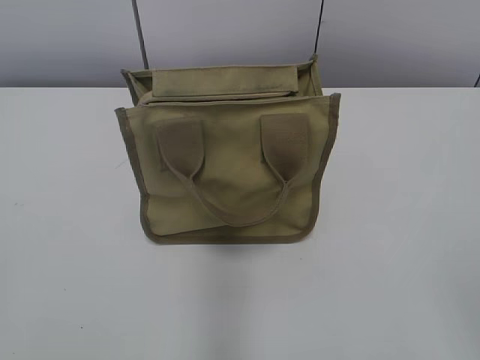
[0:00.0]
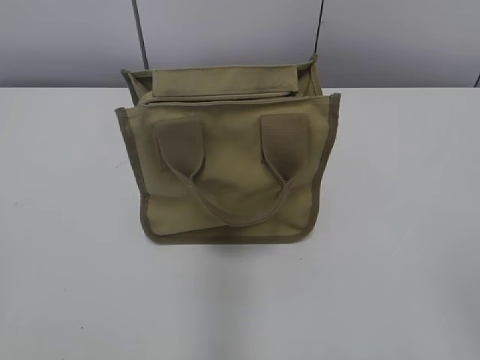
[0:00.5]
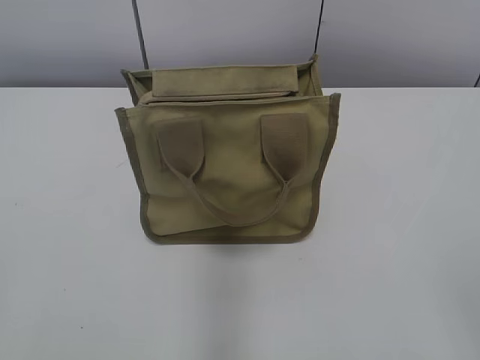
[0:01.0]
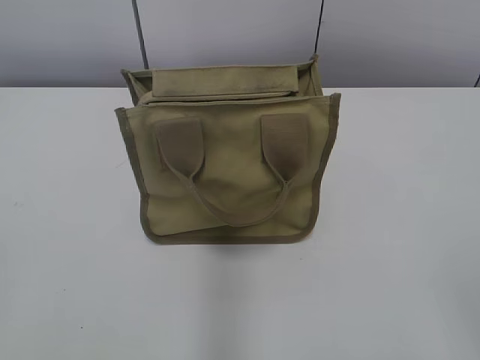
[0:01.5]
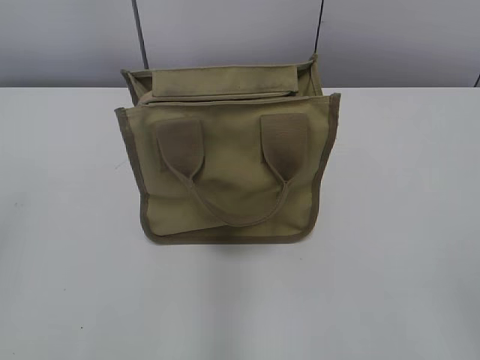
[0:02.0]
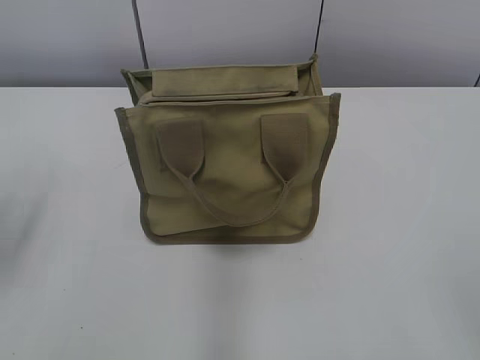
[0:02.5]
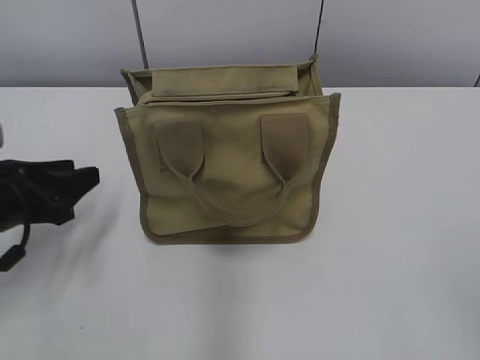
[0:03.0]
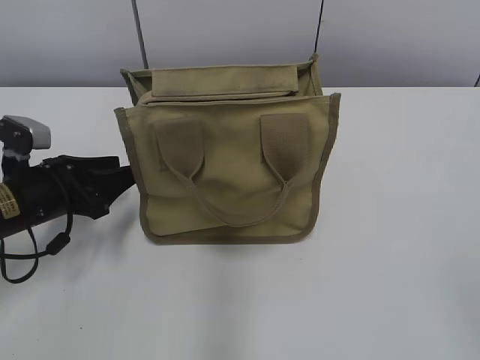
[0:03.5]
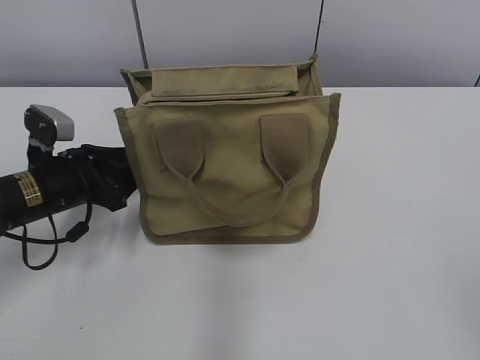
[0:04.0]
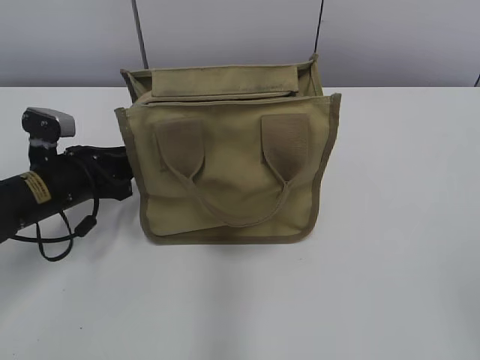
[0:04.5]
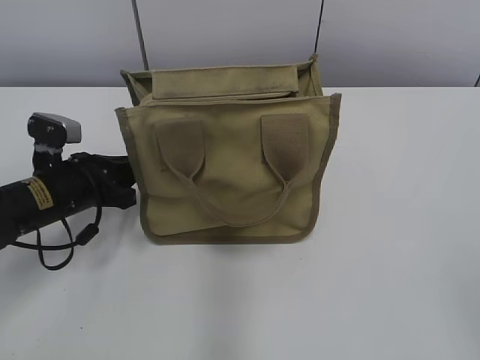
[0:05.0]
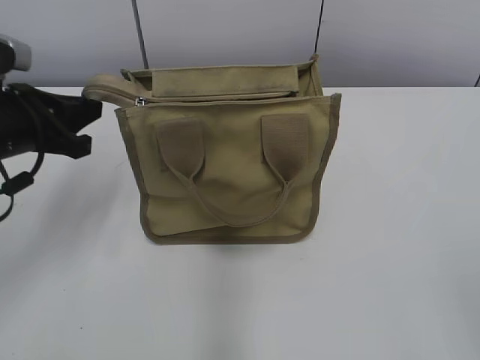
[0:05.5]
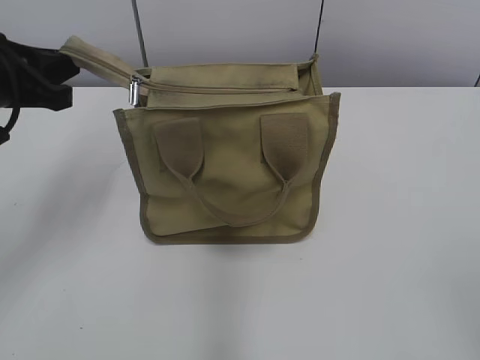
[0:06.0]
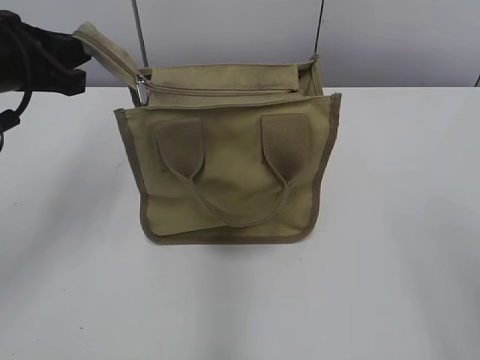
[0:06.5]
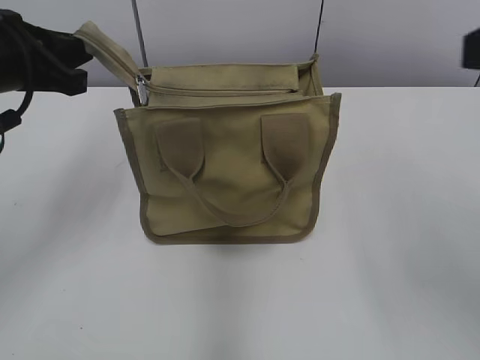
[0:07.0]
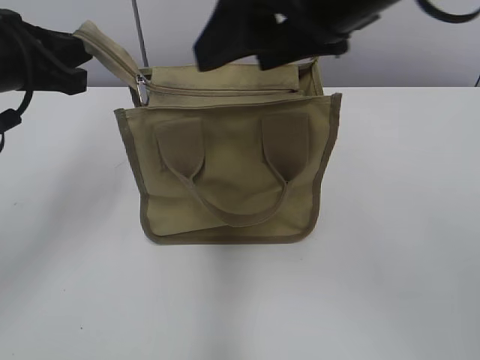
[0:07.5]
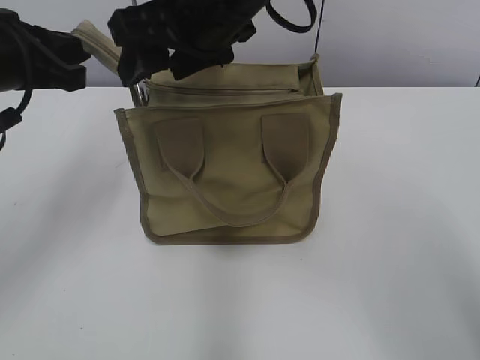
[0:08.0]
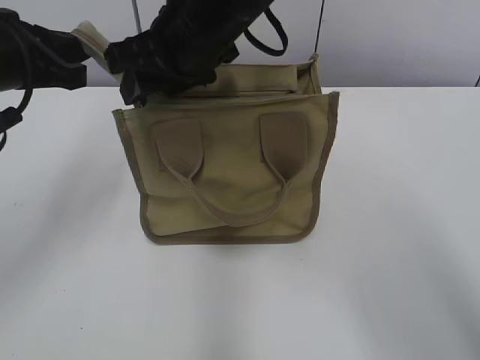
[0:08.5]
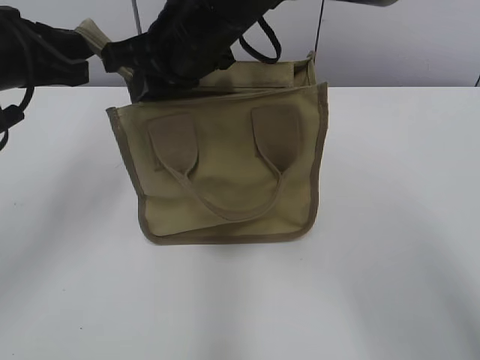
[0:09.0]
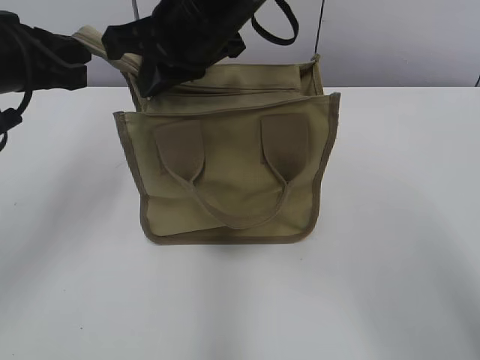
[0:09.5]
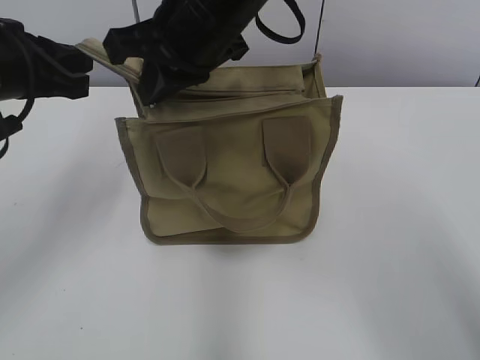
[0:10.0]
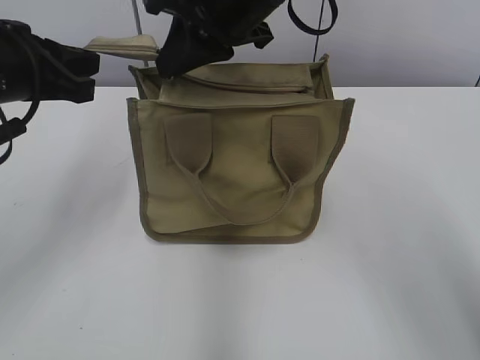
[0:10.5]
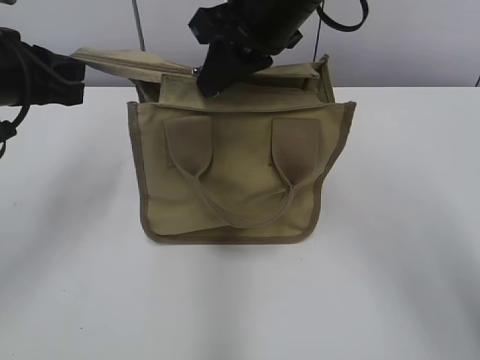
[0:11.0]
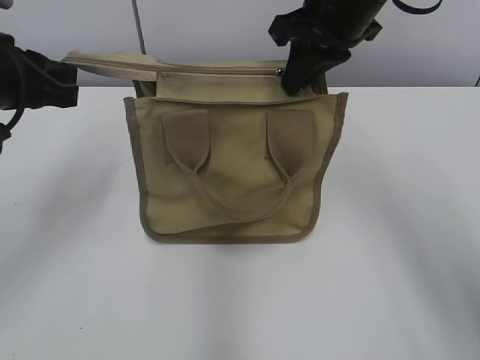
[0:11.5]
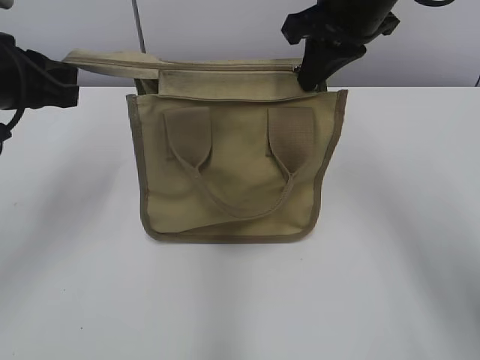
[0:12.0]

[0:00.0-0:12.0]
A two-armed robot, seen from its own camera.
0:02.0 to 0:04.0: The left gripper is displaced forward, downward and to the right by approximately 35 cm.
0:04.0 to 0:06.0: The left gripper heads upward, covering roughly 15 cm, and closes.
0:06.0 to 0:08.0: The right gripper shifts approximately 40 cm forward and to the left.
0:08.0 to 0:10.0: The right gripper closes.
0:10.0 to 0:12.0: The right gripper heads to the right, covering approximately 15 cm.

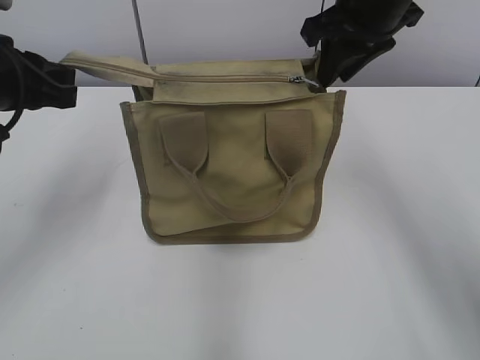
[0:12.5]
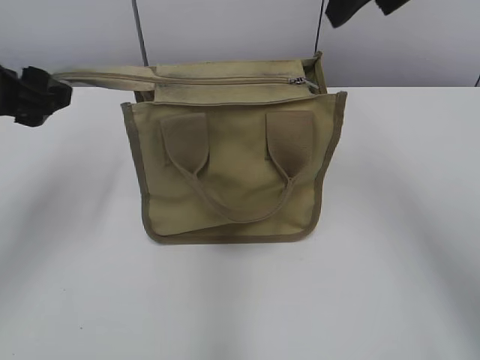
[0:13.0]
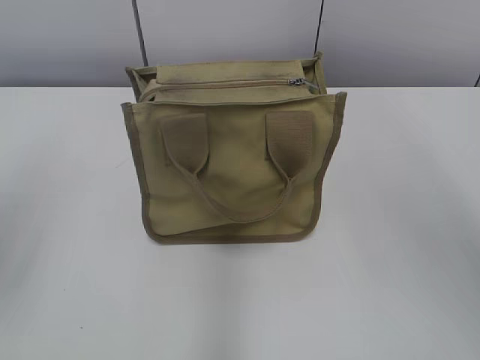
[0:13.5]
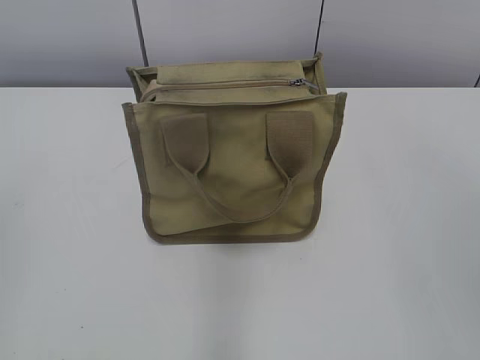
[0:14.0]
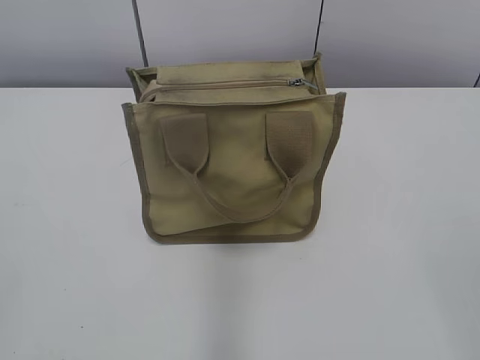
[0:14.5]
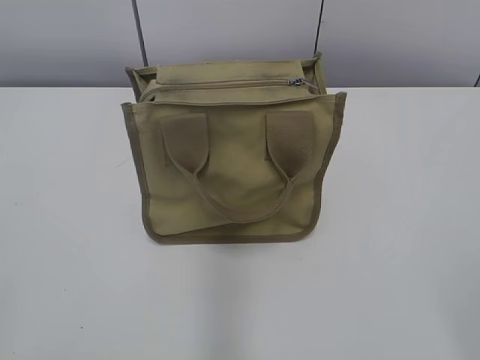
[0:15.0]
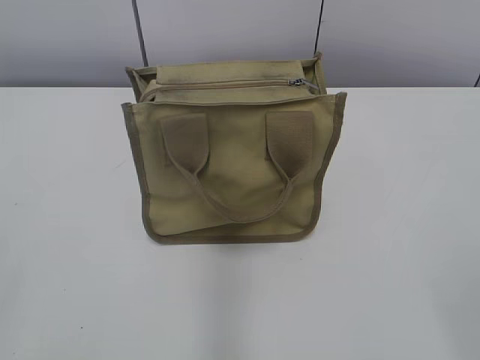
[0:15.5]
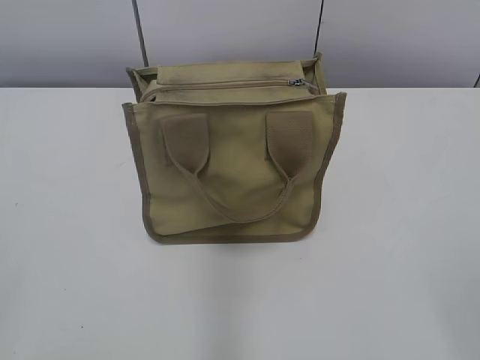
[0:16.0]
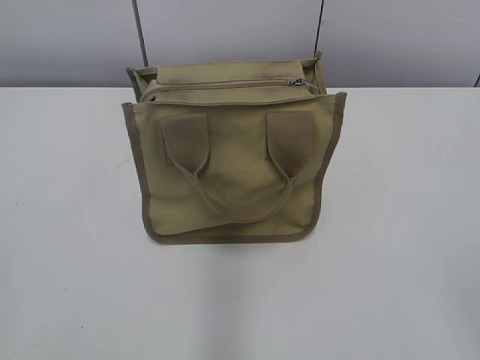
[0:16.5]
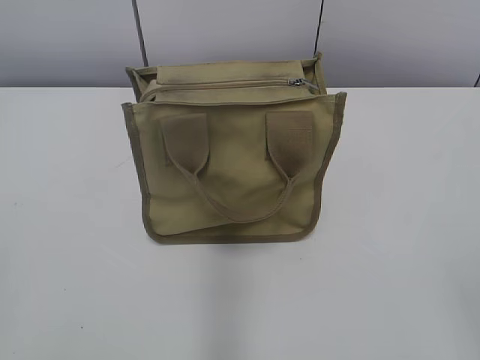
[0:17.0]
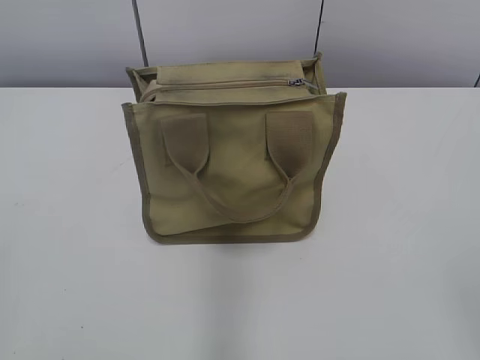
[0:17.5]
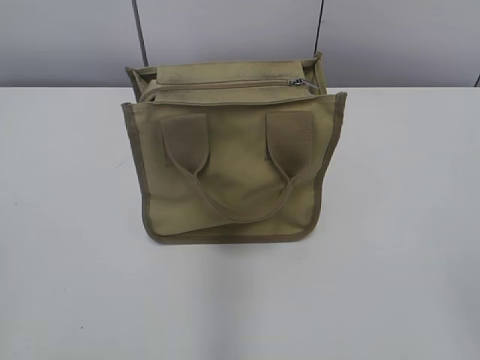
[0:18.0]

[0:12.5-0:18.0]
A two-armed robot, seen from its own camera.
Step, 0:12.5 to 0:13.0: Grab the zipper with your left hand.
0:12.5 to 0:14.5: The grippers both shift backward by approximately 35 cm. The left gripper opens, while the right gripper opens.

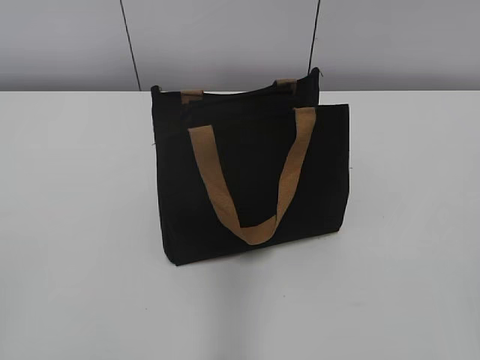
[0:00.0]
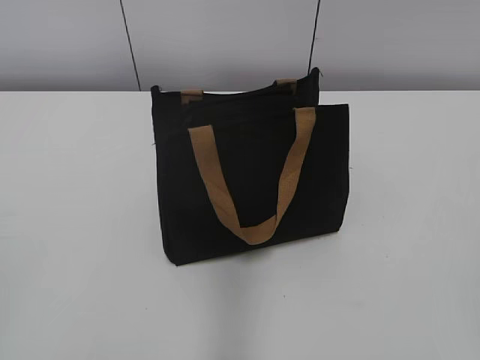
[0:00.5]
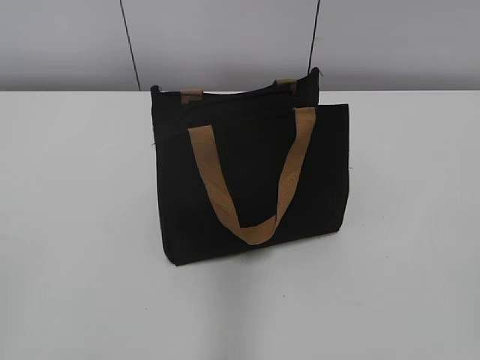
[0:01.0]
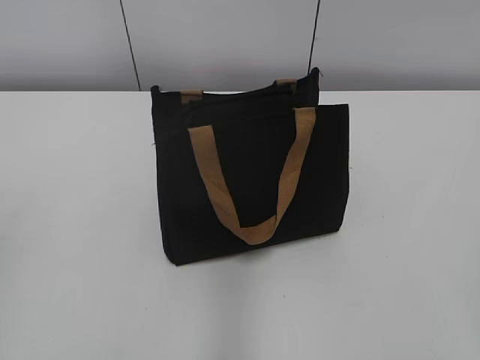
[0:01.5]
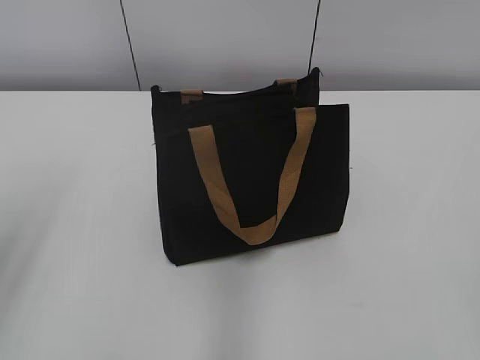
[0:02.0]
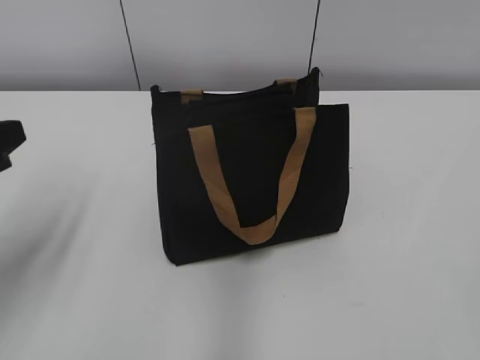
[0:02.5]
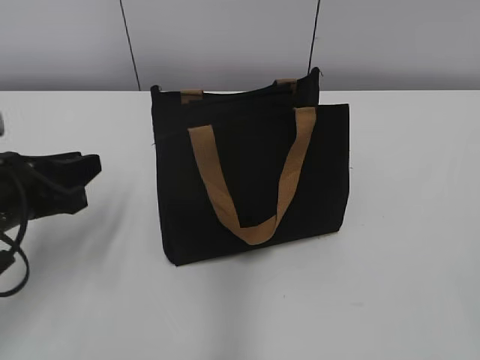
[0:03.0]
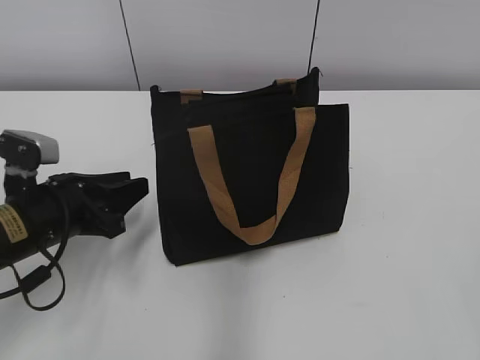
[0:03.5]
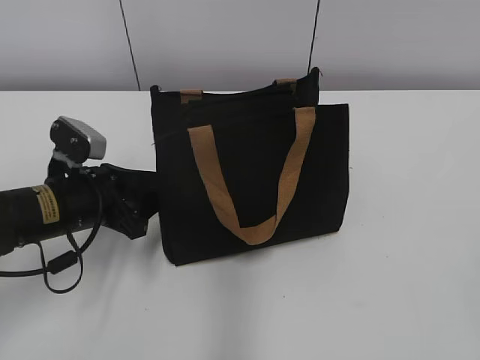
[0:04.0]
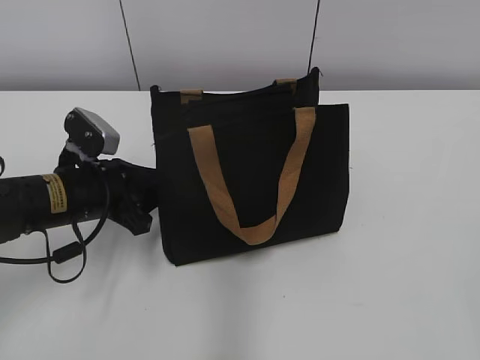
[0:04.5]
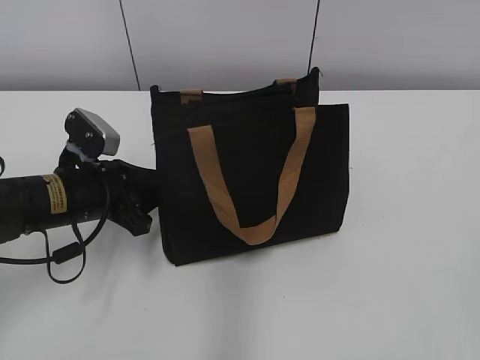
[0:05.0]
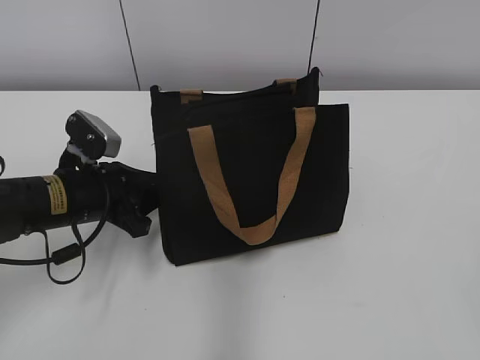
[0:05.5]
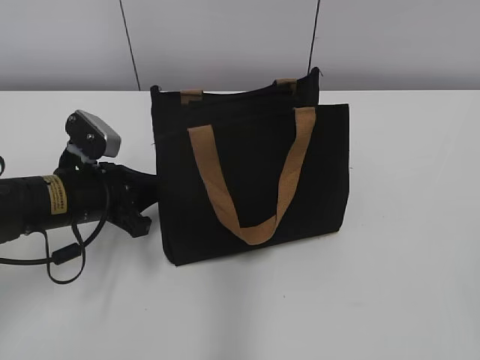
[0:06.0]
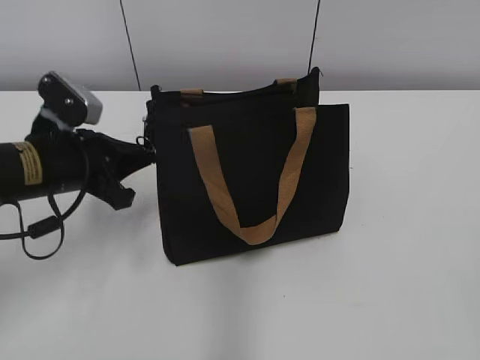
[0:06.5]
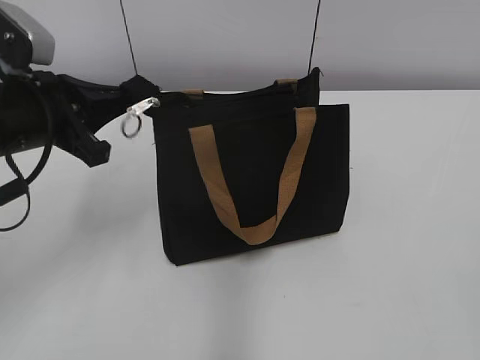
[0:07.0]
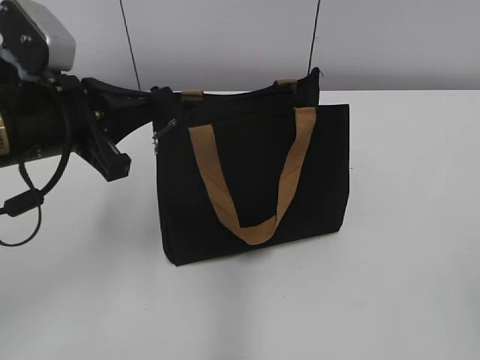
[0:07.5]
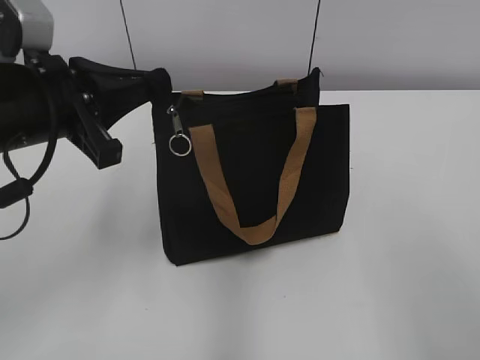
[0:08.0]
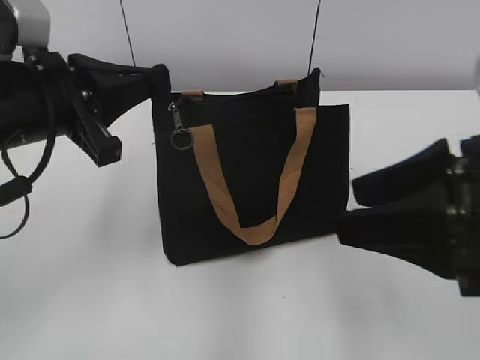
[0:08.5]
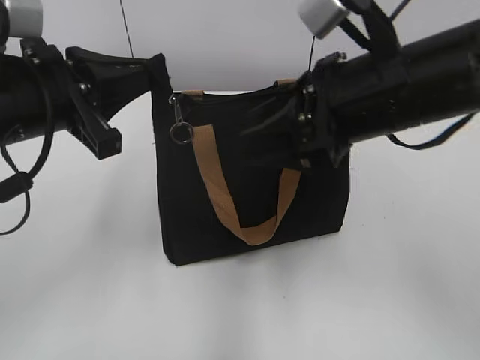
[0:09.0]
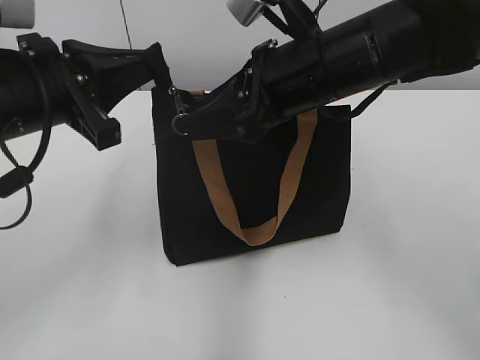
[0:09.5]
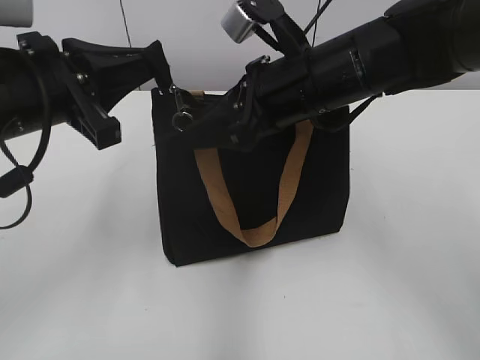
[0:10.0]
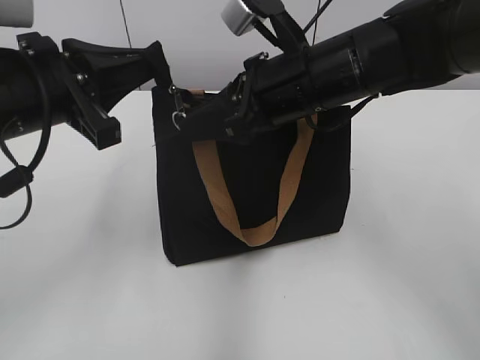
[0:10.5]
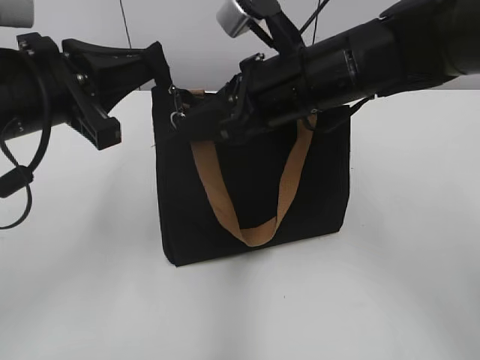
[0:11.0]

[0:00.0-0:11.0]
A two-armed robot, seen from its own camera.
0:02.0 to 0:03.5: The left gripper shifts about 25 cm downward and forward.
0:03.5 to 0:05.5: The left gripper shifts by roughly 5 cm.
0:05.5 to 0:07.5: The left gripper shifts some 10 cm upward, and closes its fingers.
0:07.5 to 0:09.0: The right gripper shifts roughly 30 cm forward and to the left.
0:09.0 to 0:11.0: The right gripper shifts approximately 10 cm forward and to the left, and closes its fingers.
